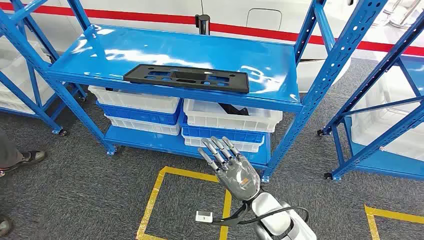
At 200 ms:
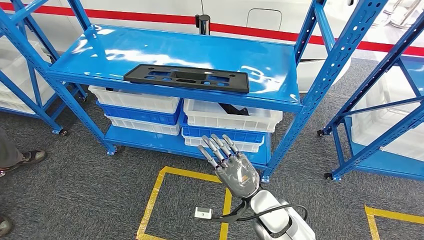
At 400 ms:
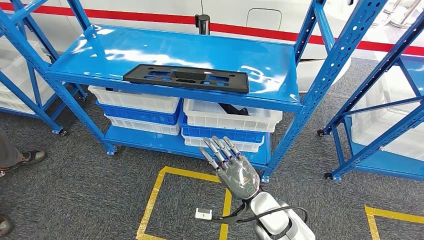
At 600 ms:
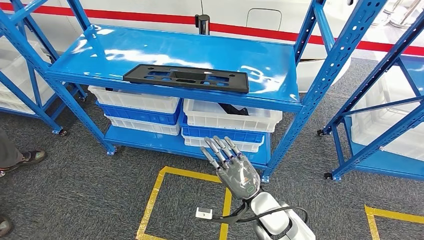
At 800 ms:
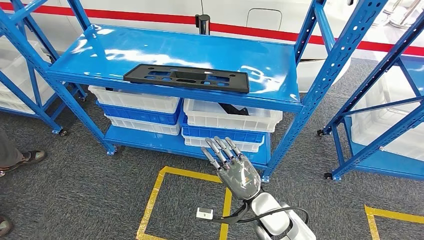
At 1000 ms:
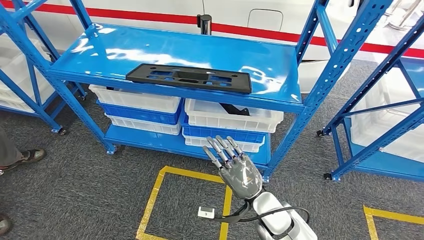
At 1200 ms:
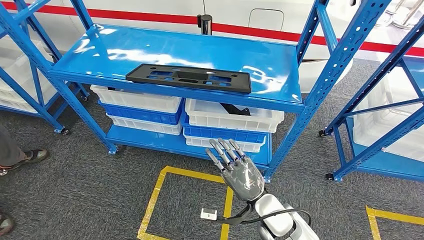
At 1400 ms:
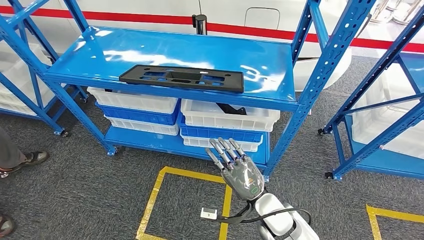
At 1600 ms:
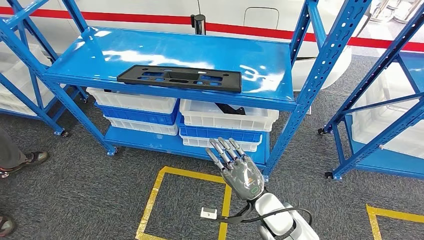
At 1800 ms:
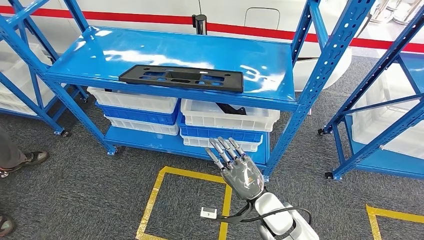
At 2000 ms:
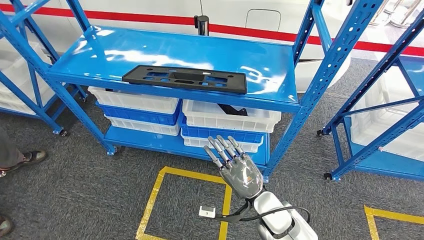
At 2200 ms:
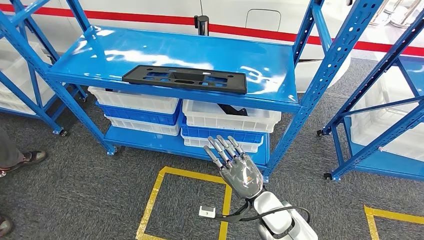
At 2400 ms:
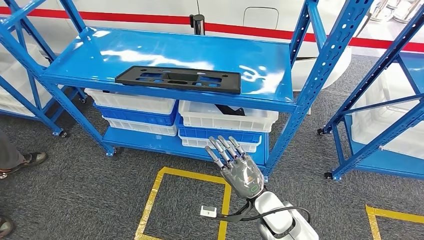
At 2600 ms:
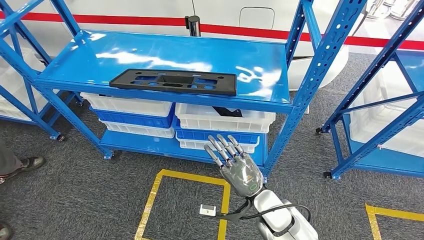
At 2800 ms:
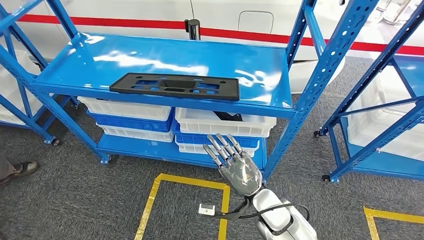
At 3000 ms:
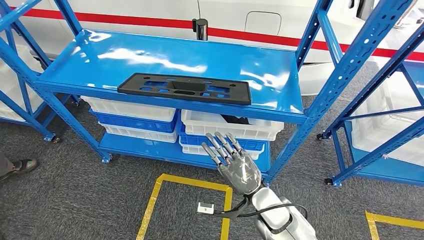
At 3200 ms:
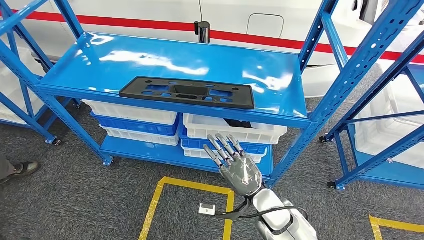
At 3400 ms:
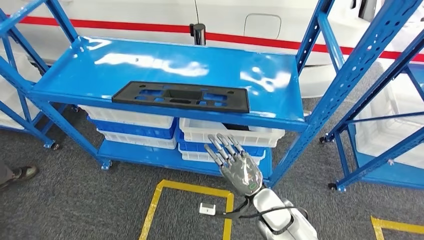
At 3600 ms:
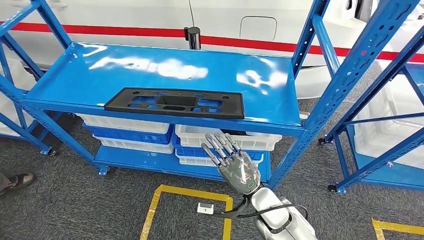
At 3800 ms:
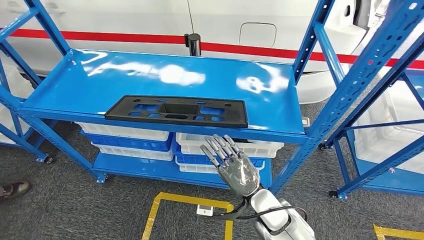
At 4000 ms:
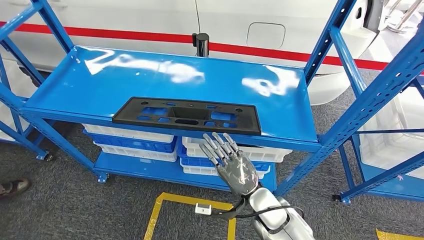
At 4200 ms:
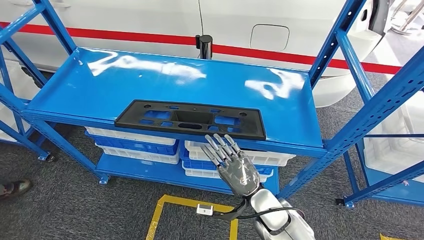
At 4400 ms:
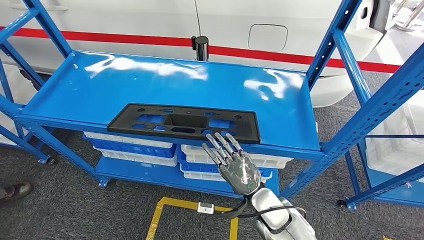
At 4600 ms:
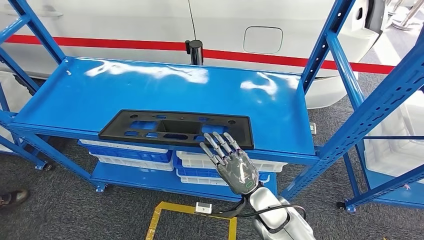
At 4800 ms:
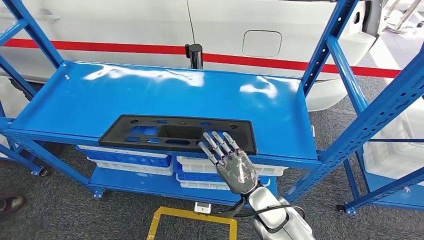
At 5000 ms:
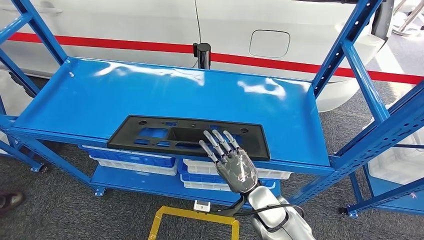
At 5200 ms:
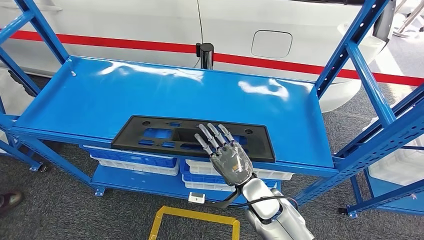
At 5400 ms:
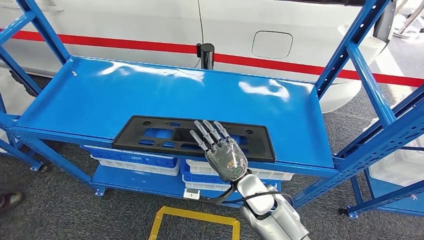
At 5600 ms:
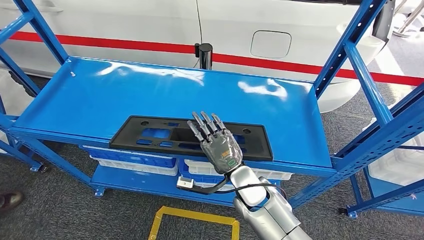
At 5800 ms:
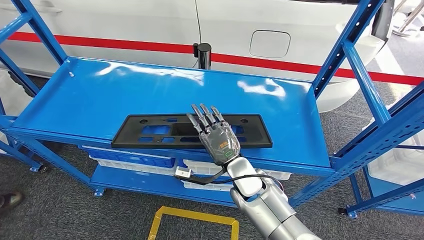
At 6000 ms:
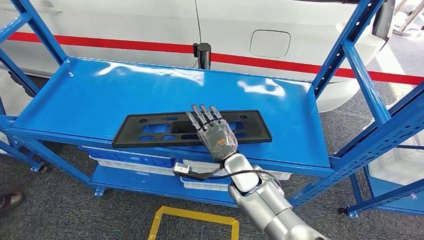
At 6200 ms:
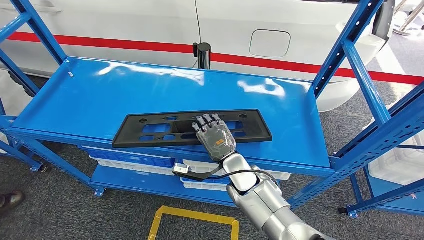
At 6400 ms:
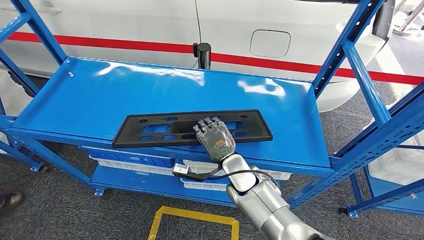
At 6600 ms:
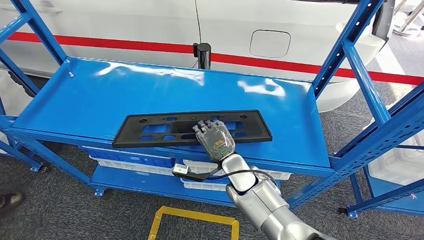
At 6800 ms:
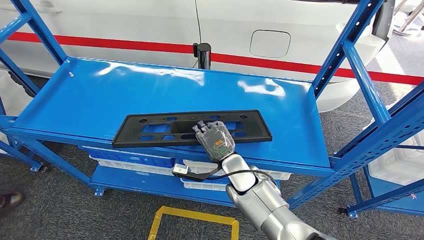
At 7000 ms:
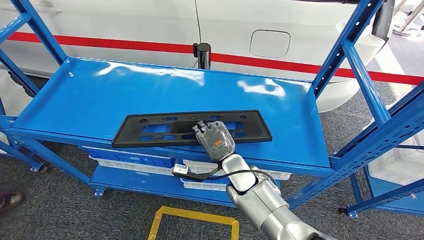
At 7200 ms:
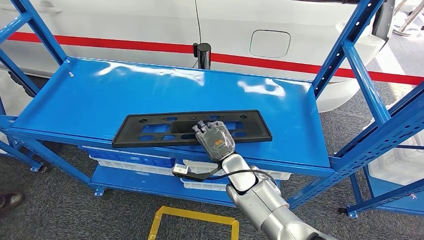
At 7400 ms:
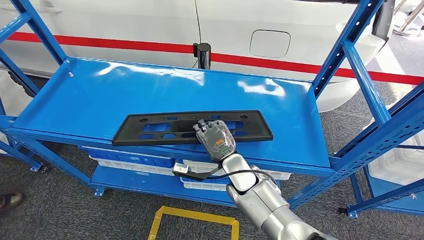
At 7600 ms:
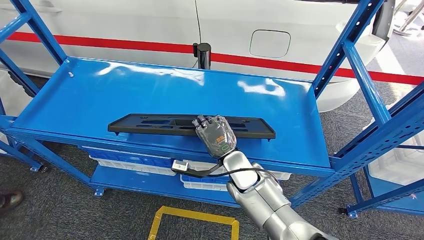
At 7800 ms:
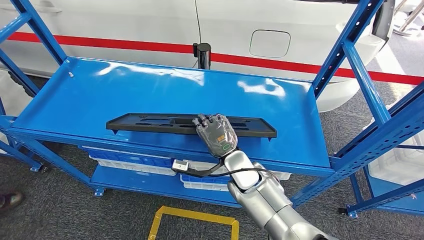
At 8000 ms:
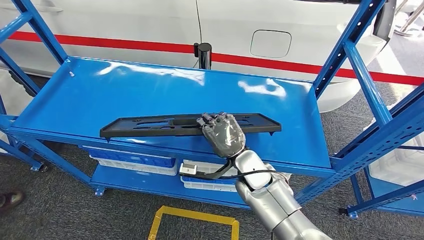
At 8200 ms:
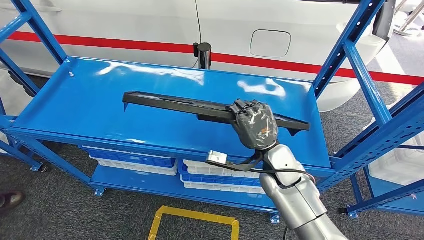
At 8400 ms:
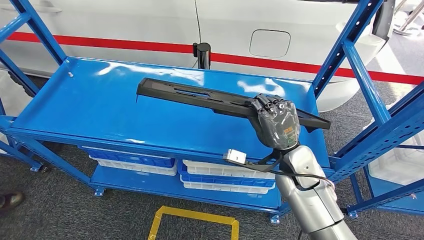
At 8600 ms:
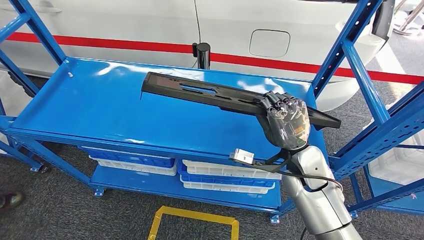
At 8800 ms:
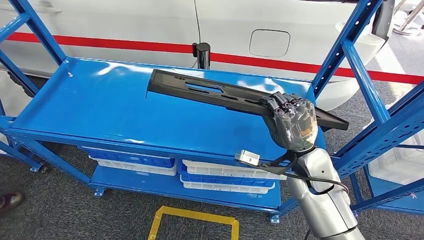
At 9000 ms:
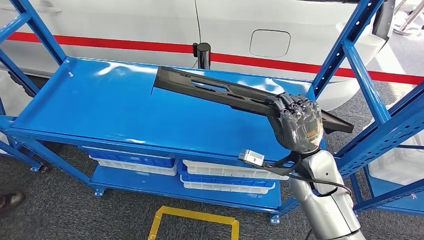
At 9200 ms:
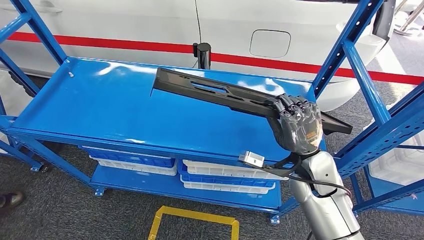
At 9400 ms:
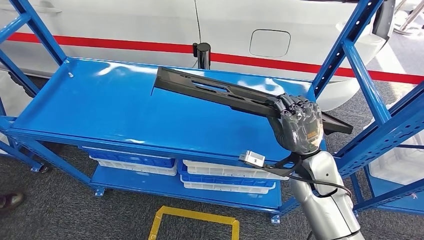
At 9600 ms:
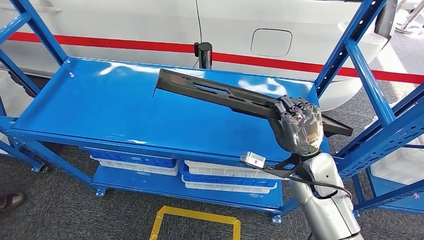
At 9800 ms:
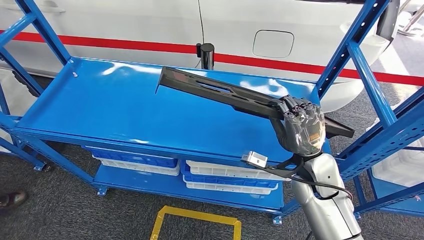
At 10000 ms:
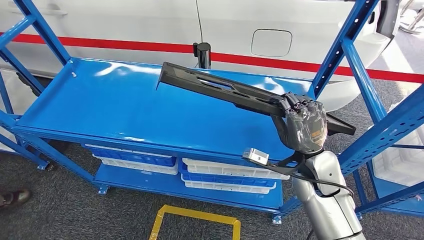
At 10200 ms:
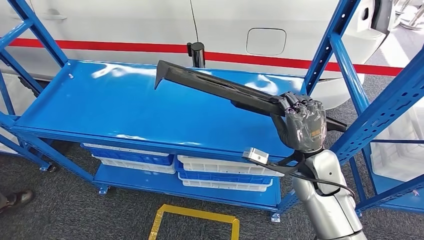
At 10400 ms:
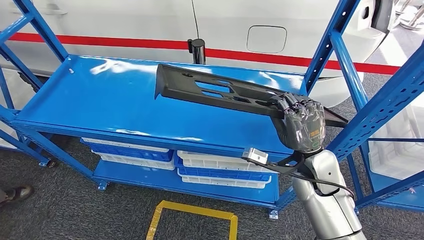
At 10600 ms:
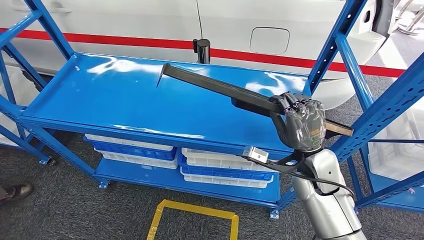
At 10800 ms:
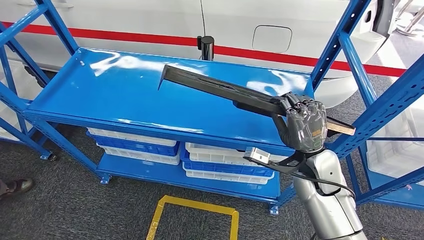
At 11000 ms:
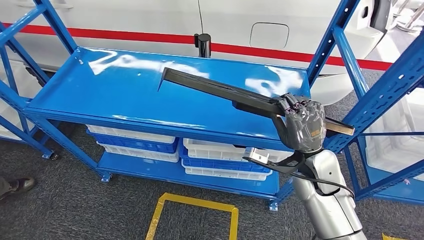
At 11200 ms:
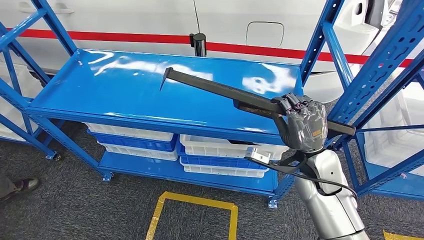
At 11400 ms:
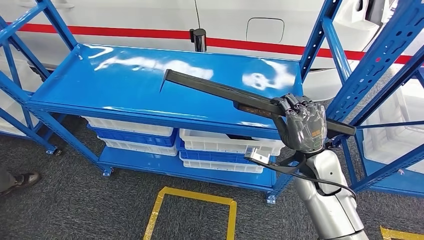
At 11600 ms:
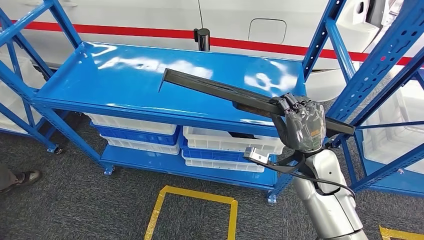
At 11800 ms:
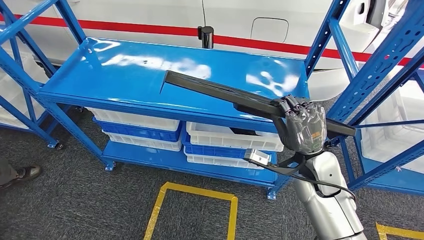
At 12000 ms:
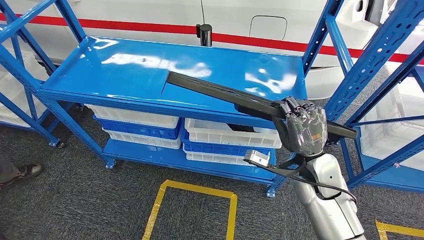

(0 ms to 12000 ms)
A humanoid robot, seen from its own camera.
Step, 0 ms - 9200 ms: Pick up the large material from the shelf.
6000 ms - 7600 ms: The hands make only small movements.
7600 ms - 9000 ms: The right hand is displaced to the right and upward by approximately 15 cm.

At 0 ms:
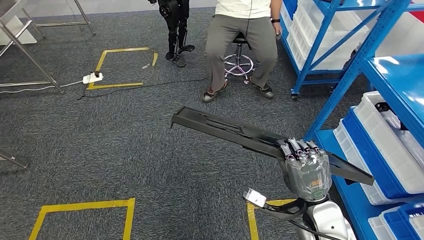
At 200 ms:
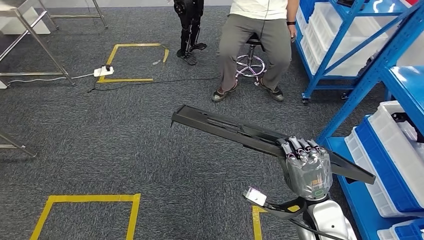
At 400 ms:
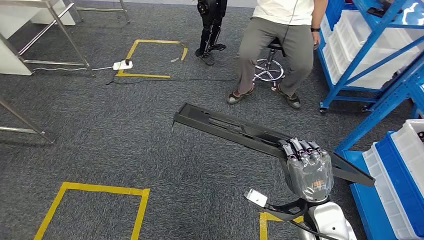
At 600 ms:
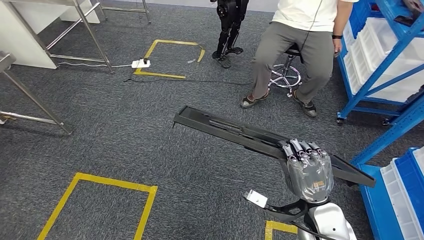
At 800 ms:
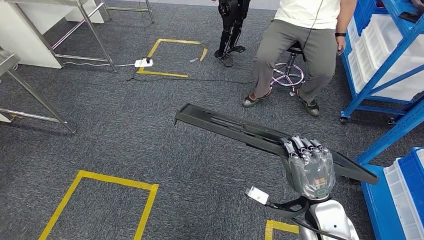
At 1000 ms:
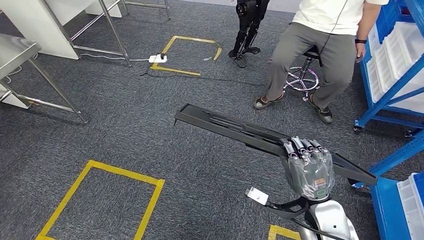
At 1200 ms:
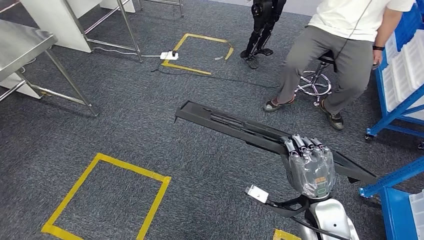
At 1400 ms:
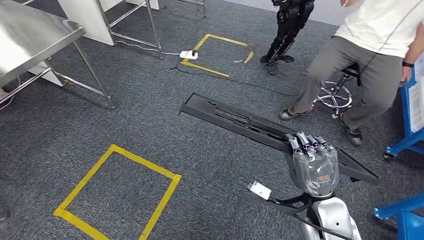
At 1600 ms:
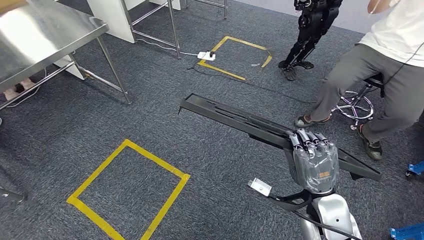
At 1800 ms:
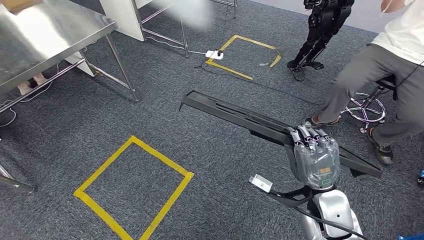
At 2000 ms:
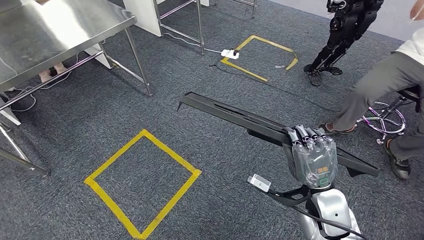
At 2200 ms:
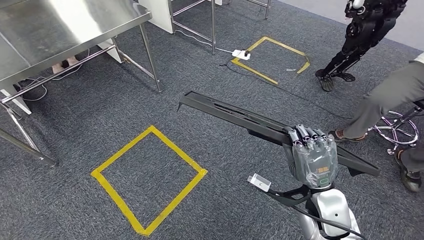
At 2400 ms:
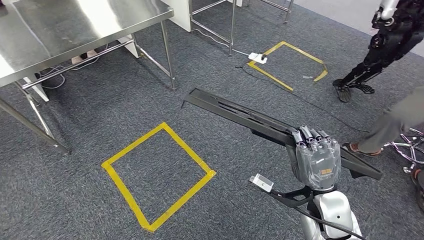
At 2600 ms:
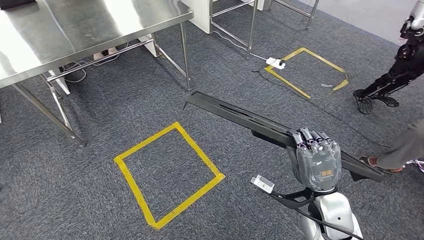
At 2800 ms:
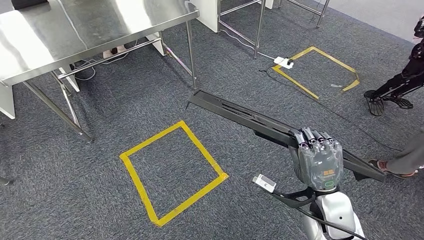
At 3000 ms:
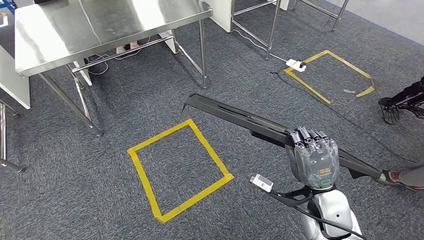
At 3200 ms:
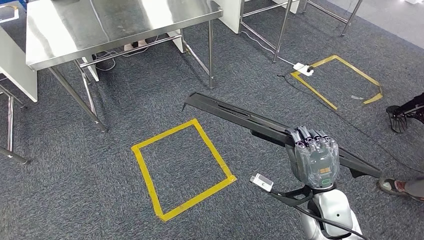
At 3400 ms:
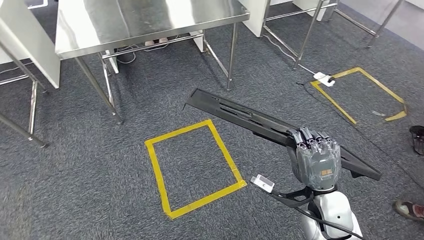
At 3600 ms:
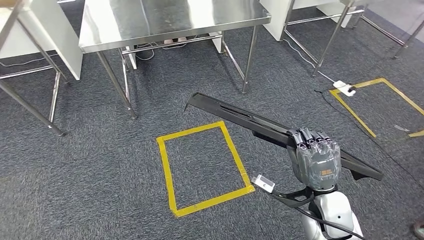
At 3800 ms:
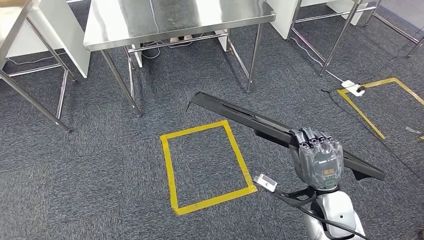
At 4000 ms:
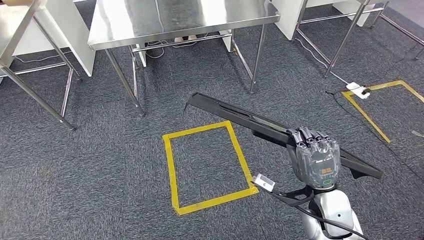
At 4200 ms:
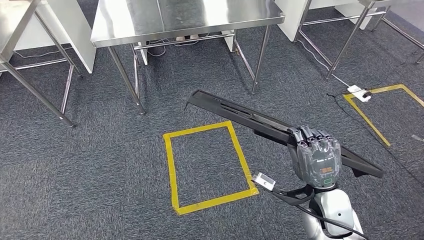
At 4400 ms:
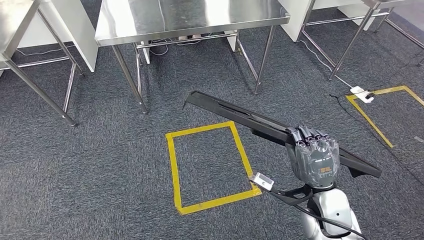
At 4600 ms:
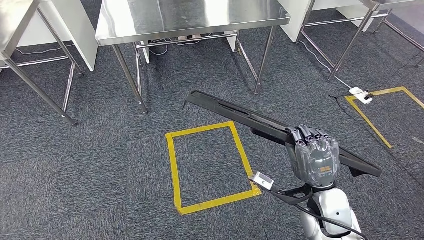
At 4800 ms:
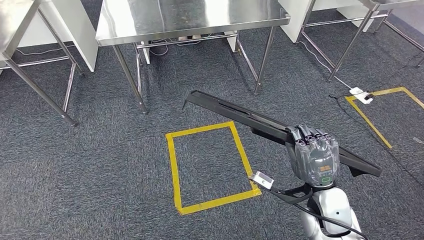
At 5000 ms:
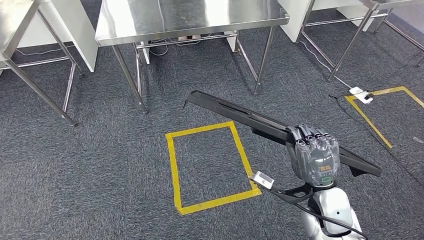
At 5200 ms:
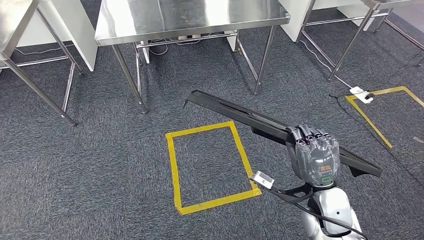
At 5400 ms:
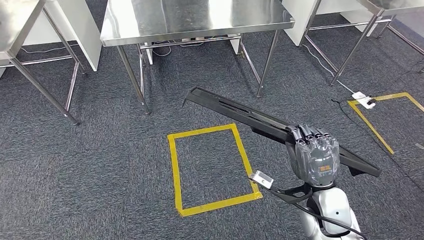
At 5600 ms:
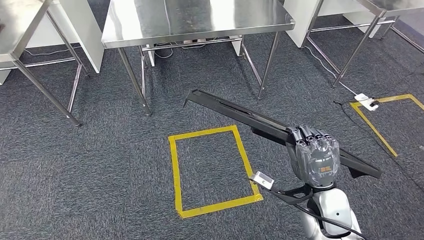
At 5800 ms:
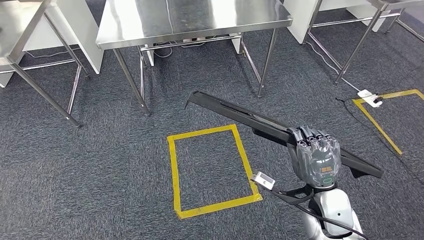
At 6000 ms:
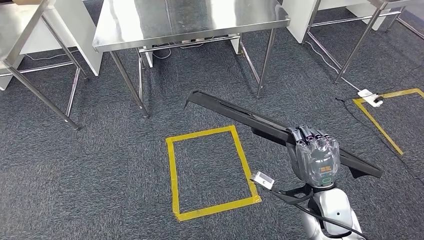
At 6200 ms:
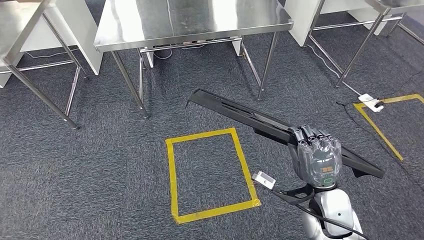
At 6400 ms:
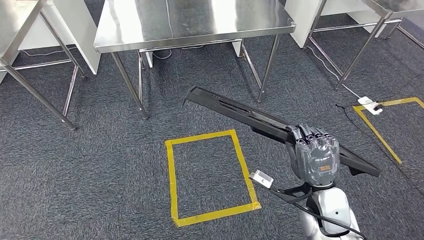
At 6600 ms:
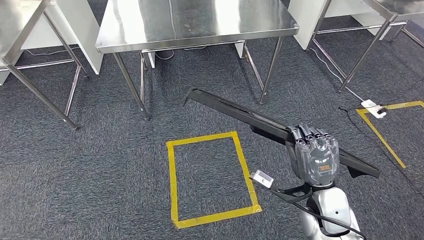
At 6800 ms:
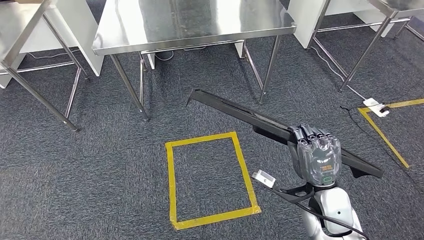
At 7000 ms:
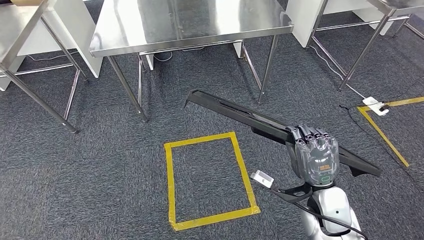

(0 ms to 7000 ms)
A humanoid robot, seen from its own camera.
4200 ms - 7000 ms: Neither hand changes place.
